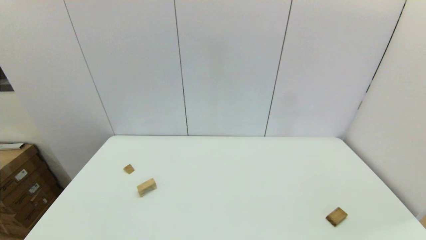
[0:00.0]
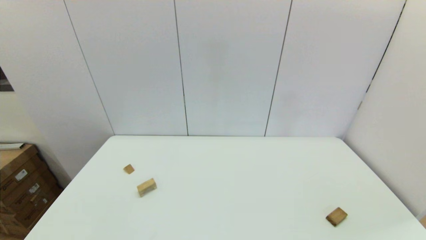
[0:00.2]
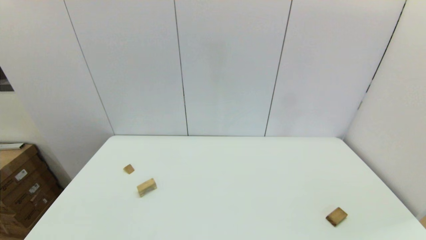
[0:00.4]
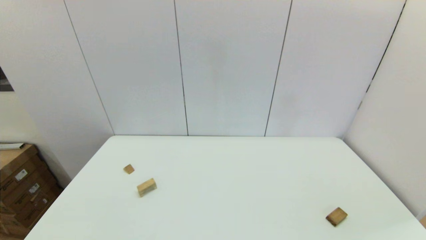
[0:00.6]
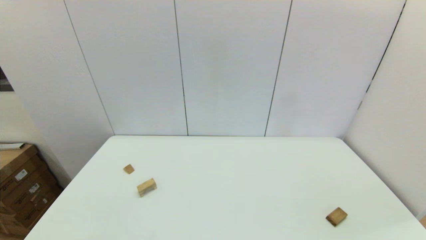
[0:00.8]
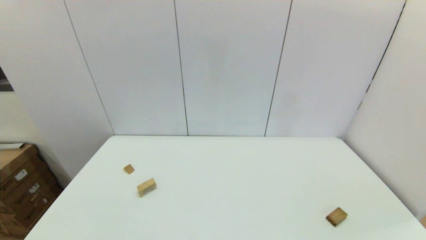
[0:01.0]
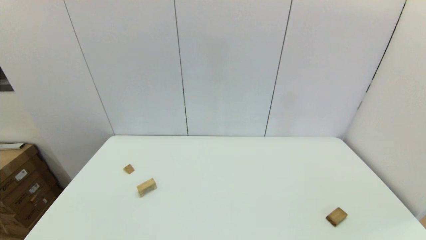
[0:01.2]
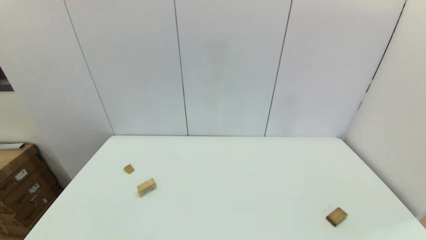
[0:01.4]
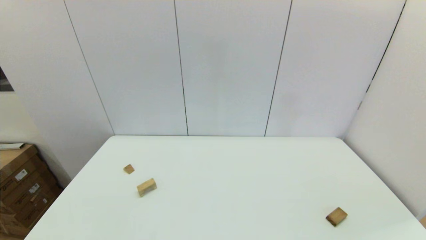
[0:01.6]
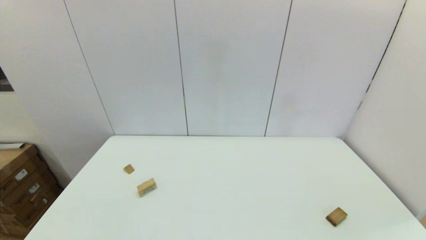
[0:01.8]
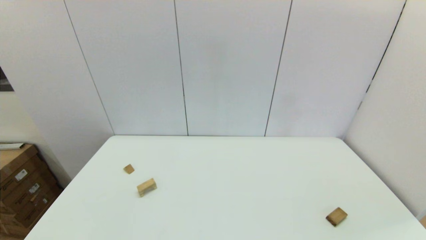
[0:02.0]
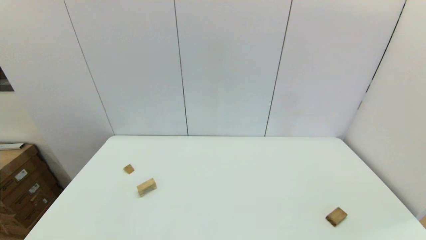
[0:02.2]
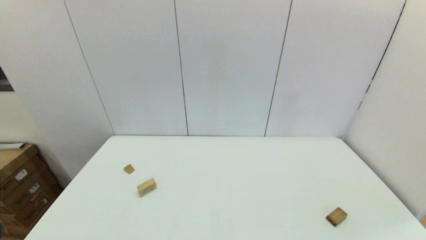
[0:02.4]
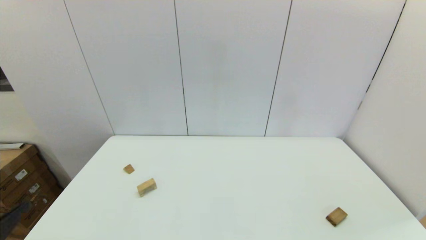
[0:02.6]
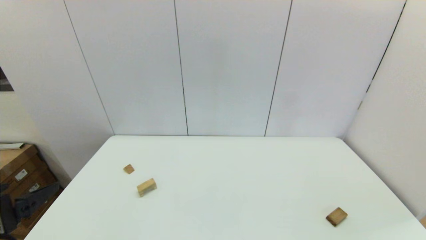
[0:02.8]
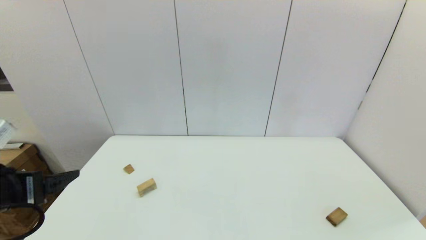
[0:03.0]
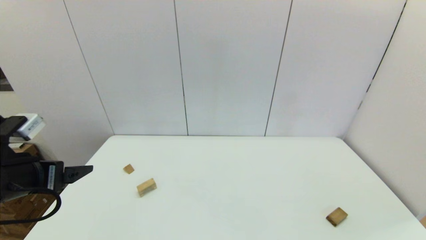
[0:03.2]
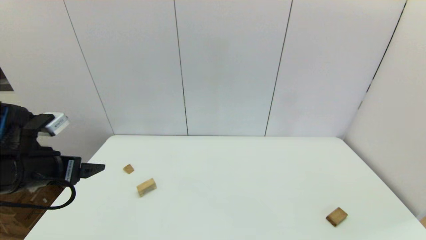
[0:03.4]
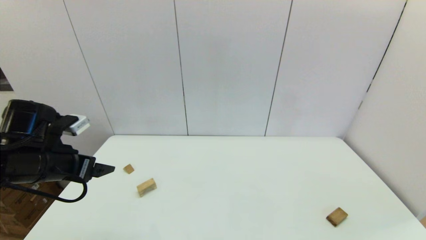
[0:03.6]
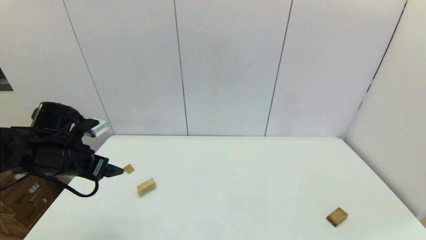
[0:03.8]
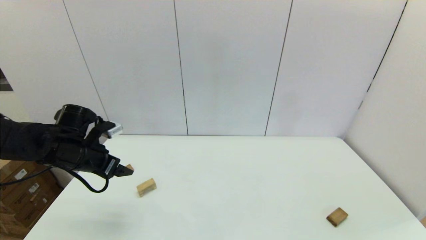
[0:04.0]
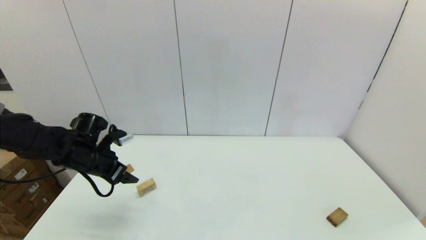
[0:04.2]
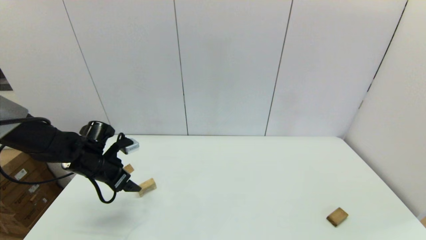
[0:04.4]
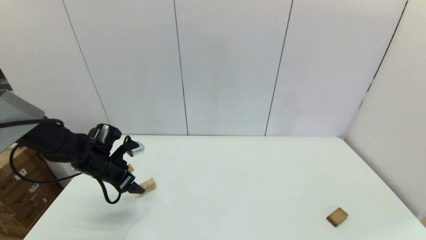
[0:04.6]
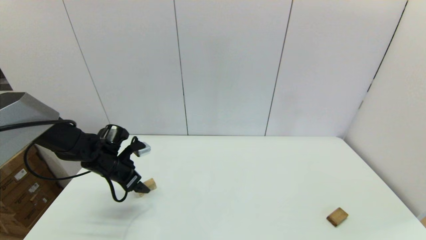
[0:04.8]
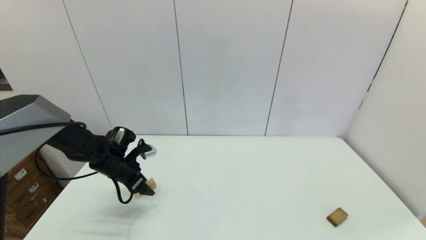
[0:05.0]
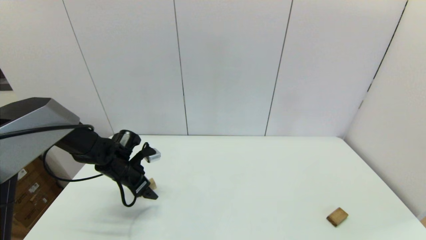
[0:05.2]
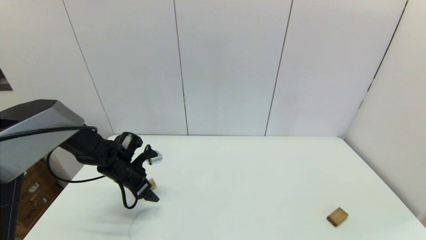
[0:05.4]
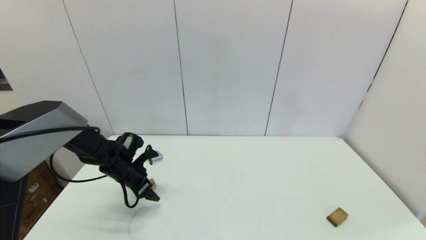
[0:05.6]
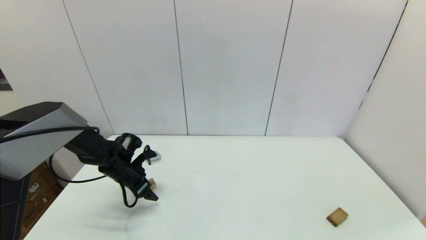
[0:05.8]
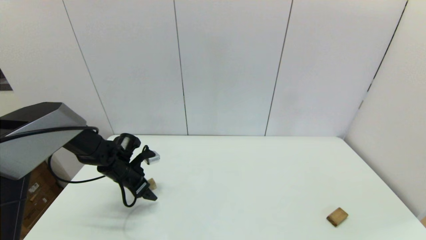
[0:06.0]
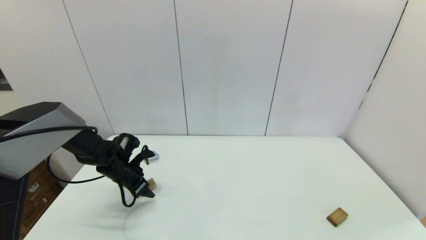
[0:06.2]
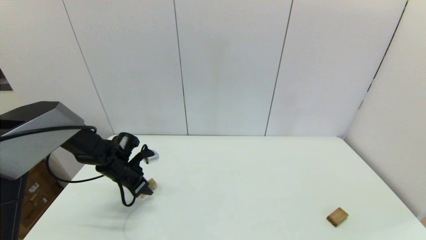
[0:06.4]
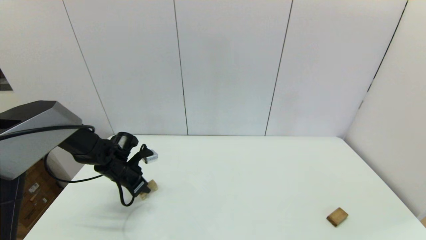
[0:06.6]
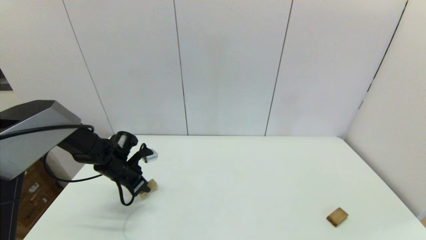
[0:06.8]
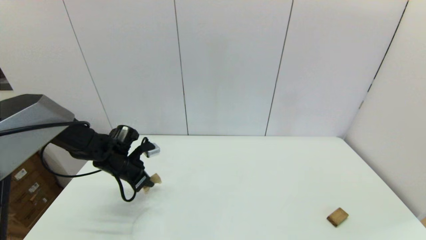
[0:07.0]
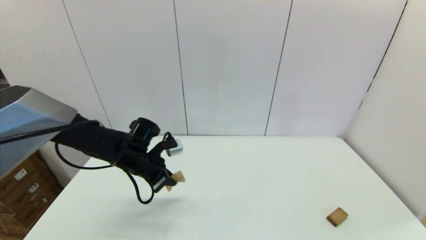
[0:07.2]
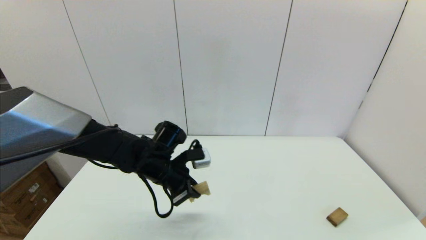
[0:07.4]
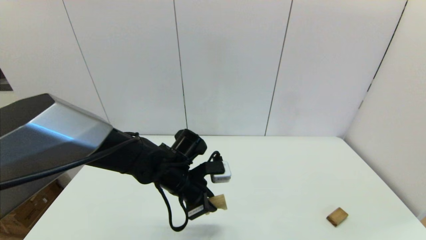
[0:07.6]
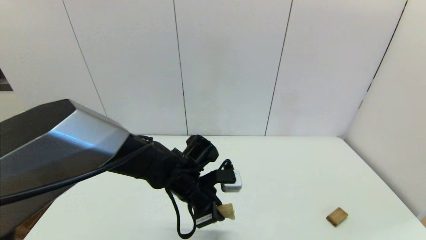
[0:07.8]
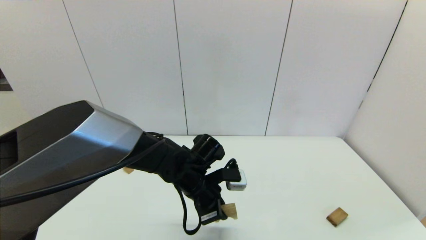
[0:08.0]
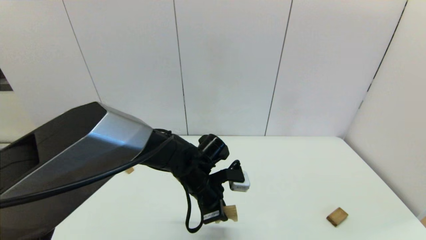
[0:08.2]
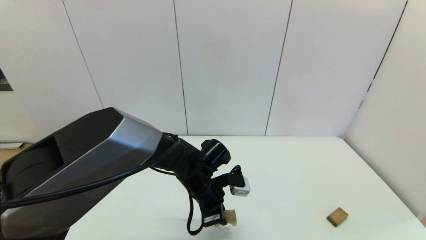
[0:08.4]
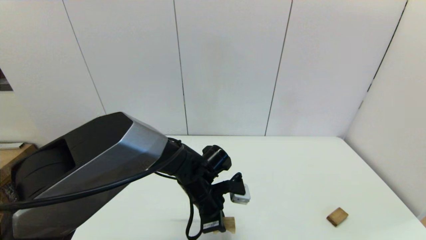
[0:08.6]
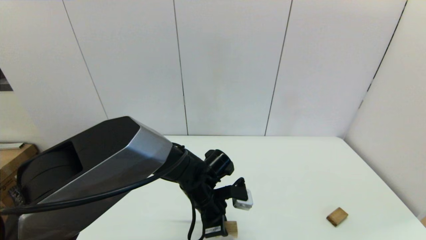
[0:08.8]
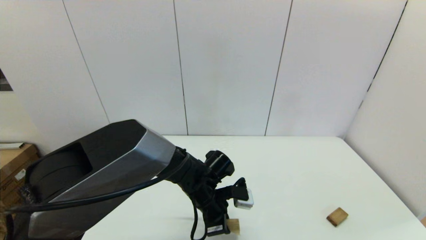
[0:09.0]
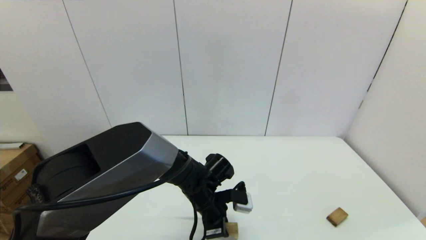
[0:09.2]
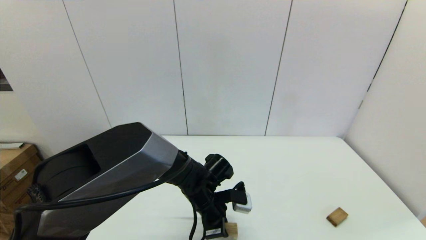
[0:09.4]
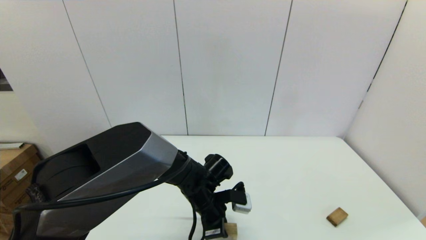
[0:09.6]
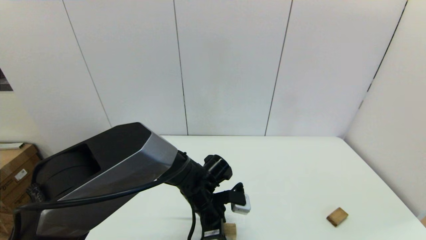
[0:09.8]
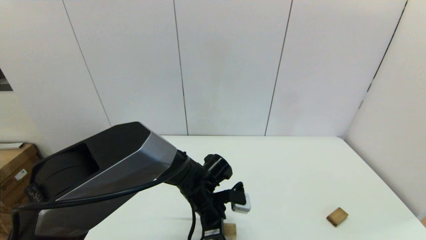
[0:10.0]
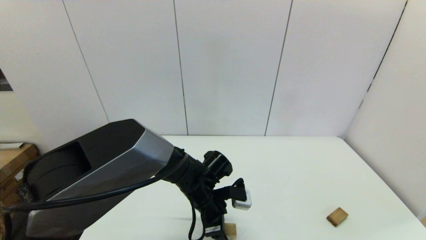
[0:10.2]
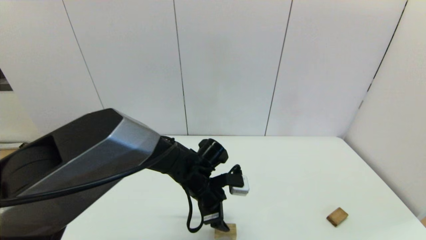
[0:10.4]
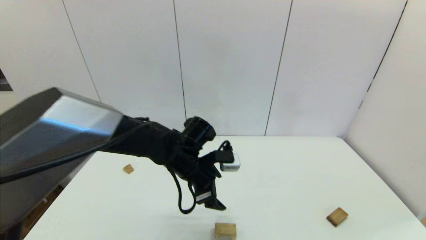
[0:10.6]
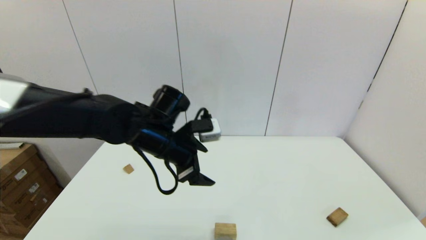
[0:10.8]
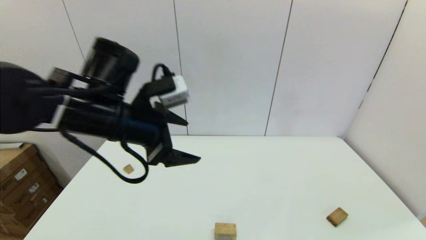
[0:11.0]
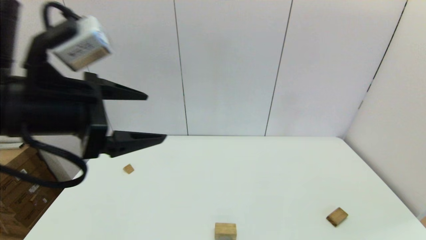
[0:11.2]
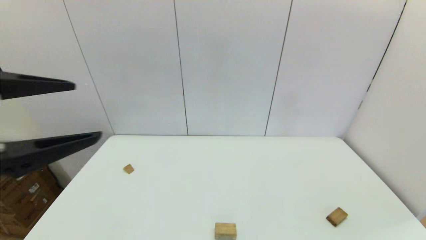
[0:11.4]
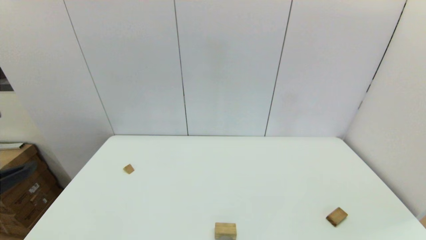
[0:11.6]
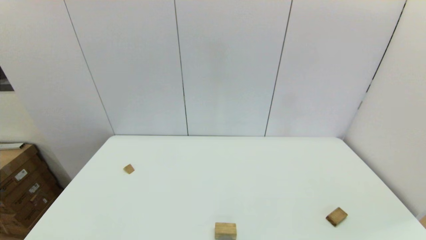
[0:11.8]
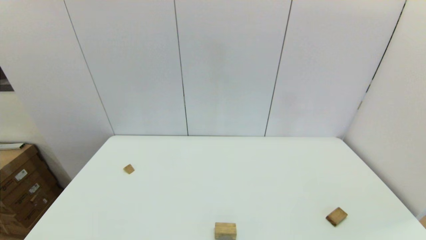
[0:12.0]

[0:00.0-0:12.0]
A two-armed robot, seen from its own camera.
Task of the whole recording: place the arched building blocks in the center of the table, set up the rectangular building blocks, and then set up the triangular building blocks.
Step, 0:02.4 to 0:06.4: Grasp the arch-shaped block with the left gripper.
Step, 0:06.8 to 0:09.8: Place the arch-shaped block in the center of view with the left gripper.
0:00.0 to 0:01.6: Both grippers stay put.
0:01.6 to 0:03.0: The left gripper shifts roughly 20 cm forward and upward.
0:03.0 to 0:04.4: The left gripper travels forward and downward by approximately 25 cm.
0:04.4 to 0:06.0: The left gripper heads downward, covering about 5 cm.
0:06.0 to 0:07.6: The left gripper heads to the right, backward and upward, covering roughly 20 cm, and closes its fingers.
0:07.6 to 0:09.0: The left gripper shifts roughly 10 cm downward and to the right.
0:09.0 to 0:10.4: The left gripper opens up.
0:10.4 to 0:12.0: The left gripper travels backward, to the left and upward by about 50 cm.

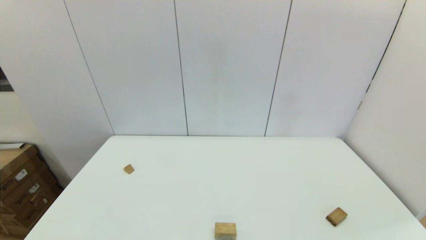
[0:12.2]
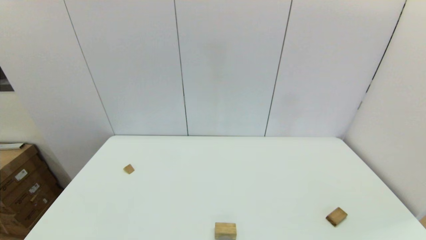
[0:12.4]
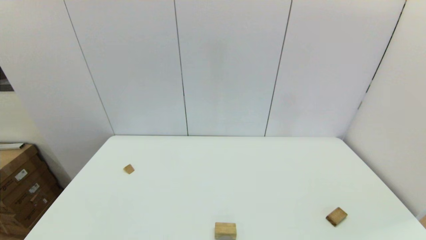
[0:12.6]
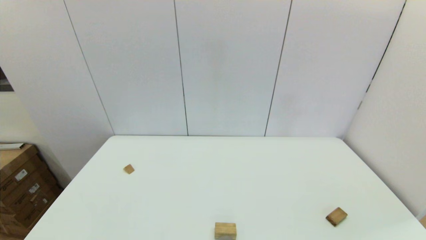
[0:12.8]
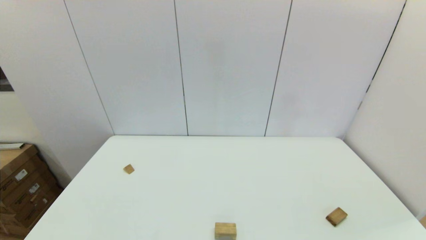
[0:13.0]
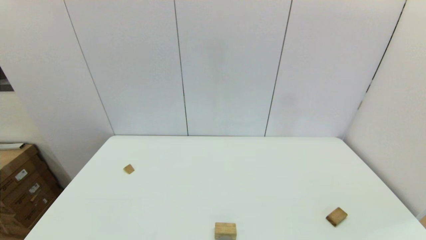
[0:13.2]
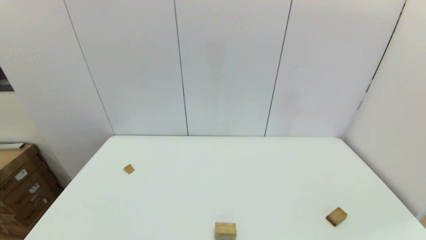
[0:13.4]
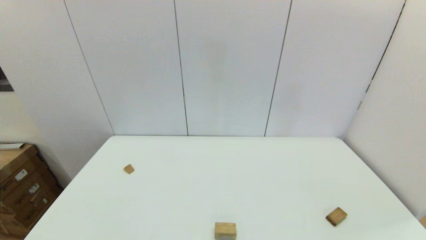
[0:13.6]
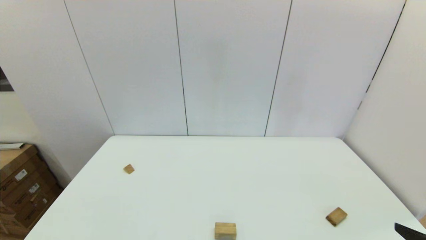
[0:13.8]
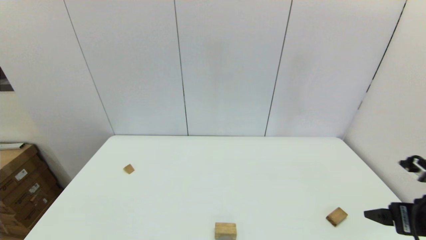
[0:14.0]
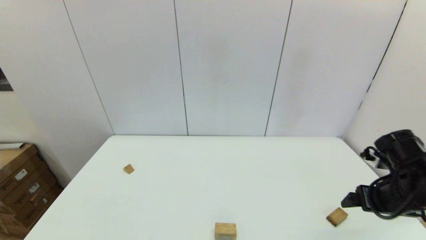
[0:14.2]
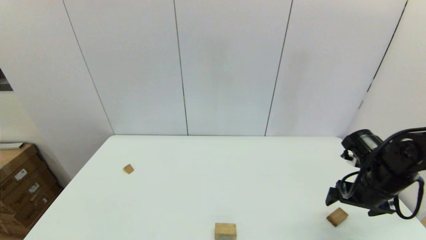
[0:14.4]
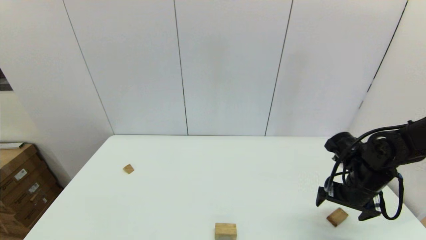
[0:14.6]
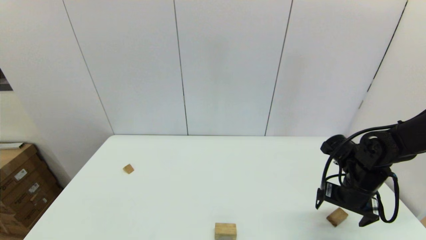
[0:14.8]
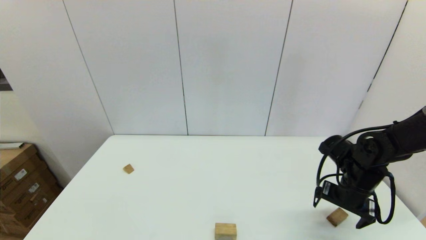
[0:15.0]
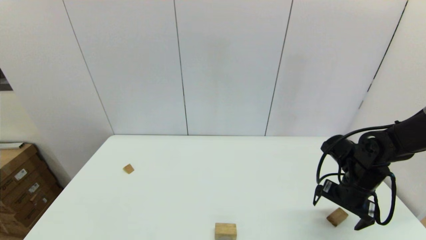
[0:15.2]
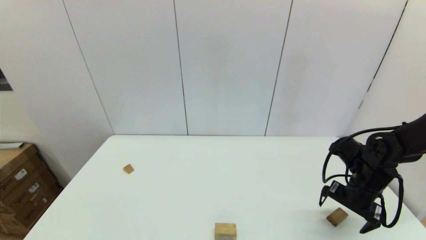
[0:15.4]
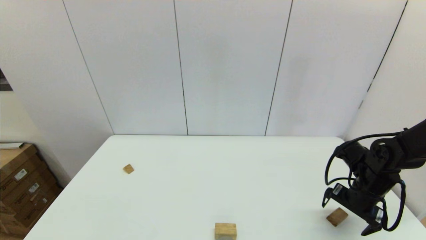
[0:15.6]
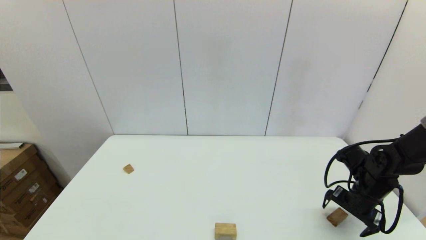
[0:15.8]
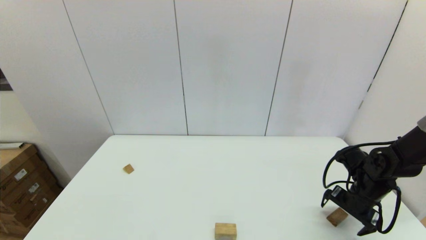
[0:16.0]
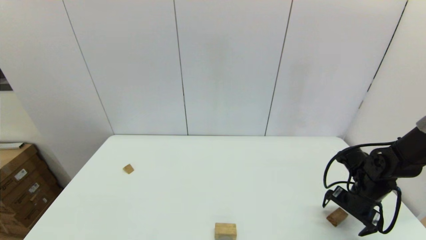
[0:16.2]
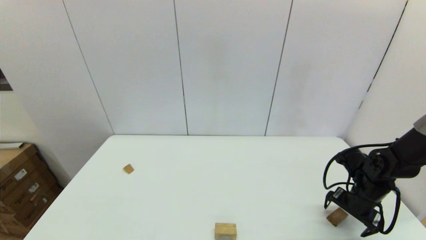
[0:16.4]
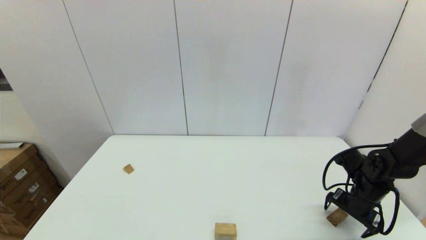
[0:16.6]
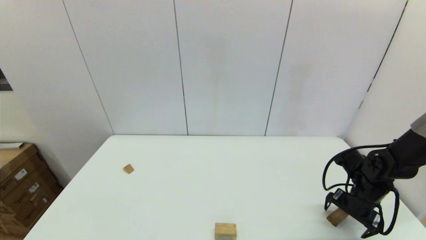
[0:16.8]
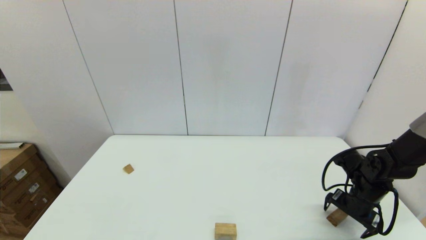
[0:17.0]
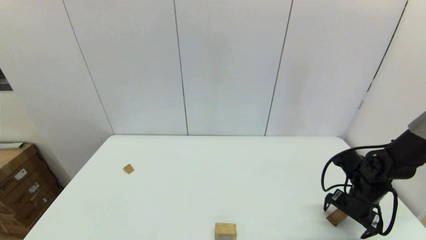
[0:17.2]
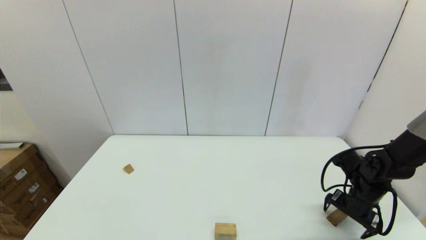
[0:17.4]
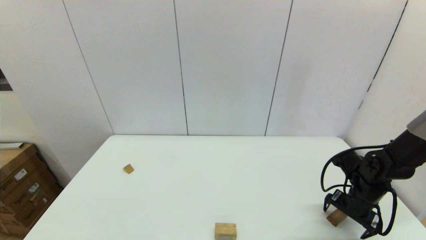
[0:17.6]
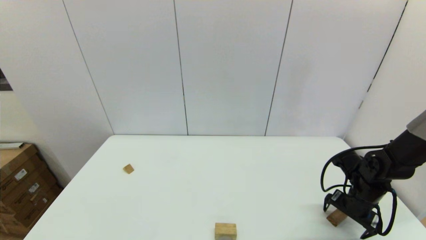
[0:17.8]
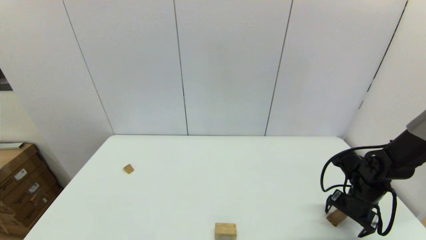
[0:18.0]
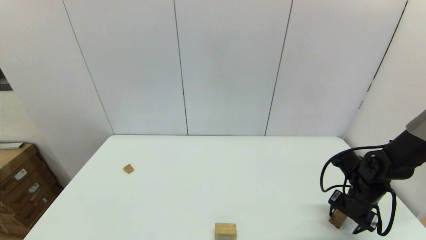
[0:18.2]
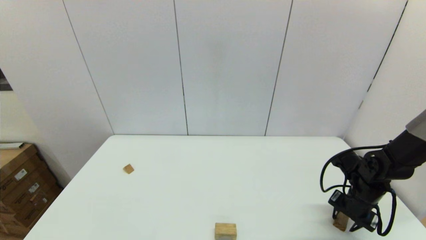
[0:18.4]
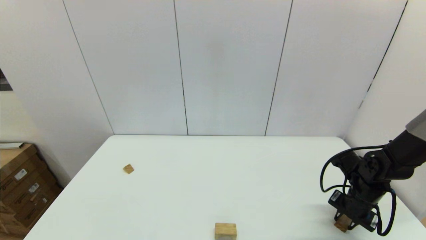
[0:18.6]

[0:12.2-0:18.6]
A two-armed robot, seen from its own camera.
Task of the whole recording: place the arched building blocks in the center of the table, set up the rectangular building blocks, and then set up the triangular building blocks.
Step, 0:12.2 to 0:18.4: Grasp the box-shaped block with the right gripper.
0:13.8 to 0:15.4: The right gripper travels forward and downward by some 25 cm.
0:15.4 to 0:17.0: The right gripper goes approximately 5 cm downward.
0:17.0 to 0:18.6: The right gripper closes its fingers.
